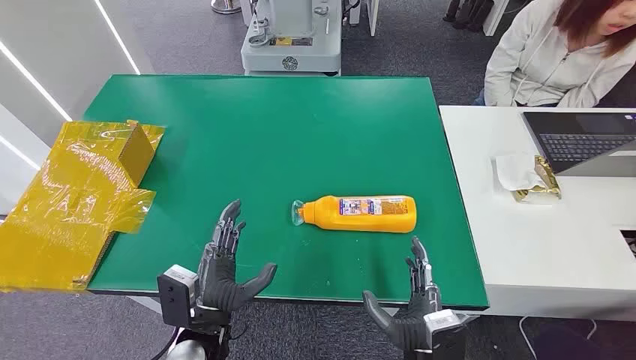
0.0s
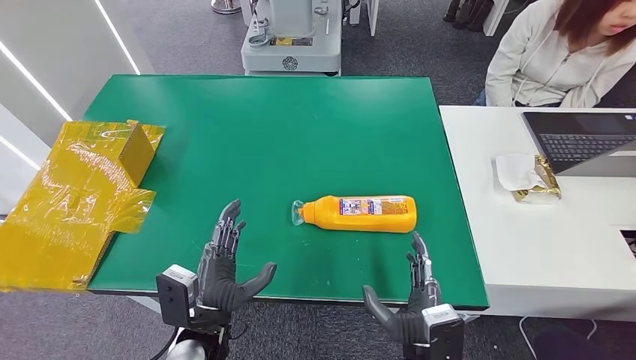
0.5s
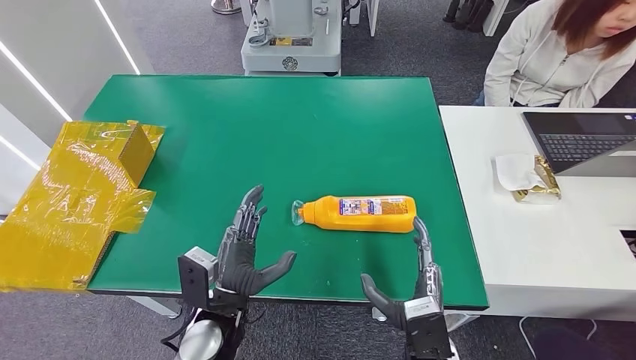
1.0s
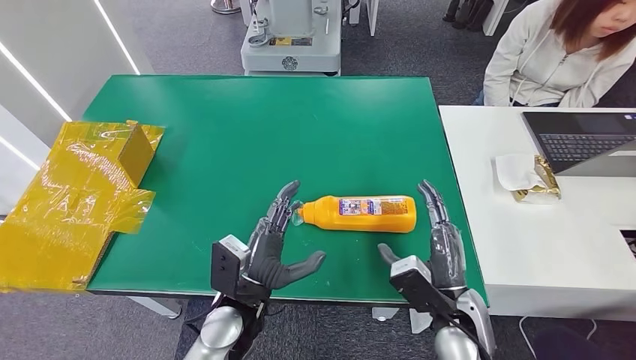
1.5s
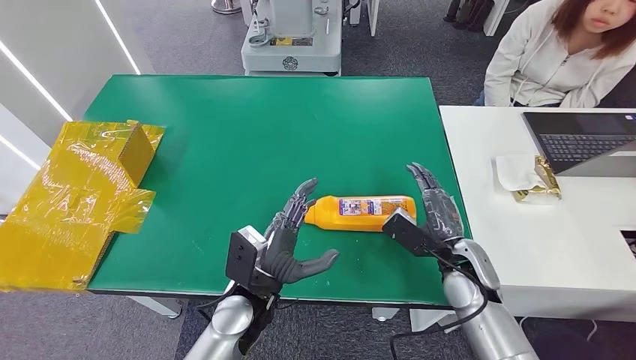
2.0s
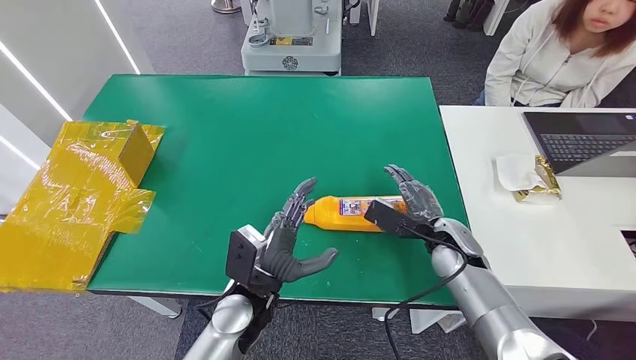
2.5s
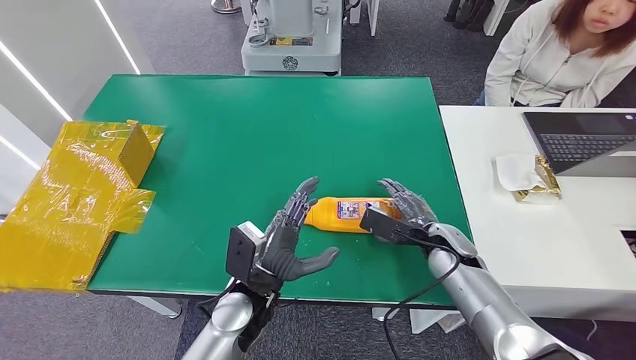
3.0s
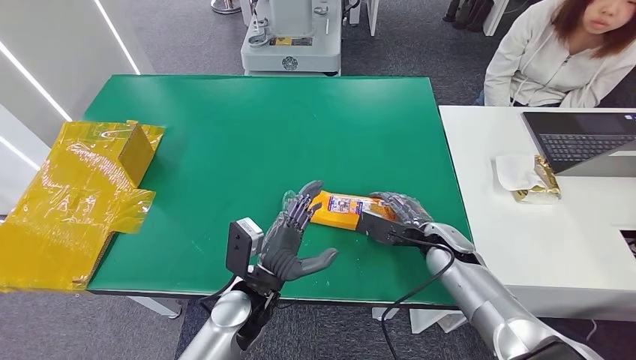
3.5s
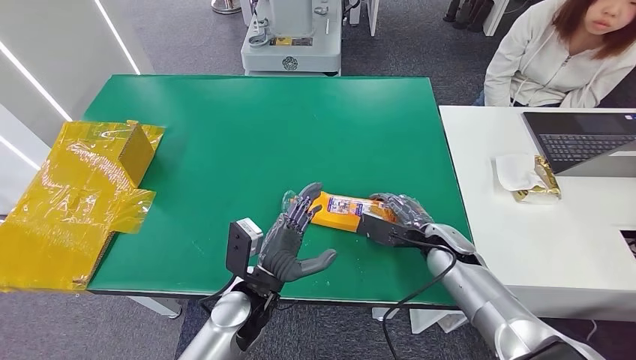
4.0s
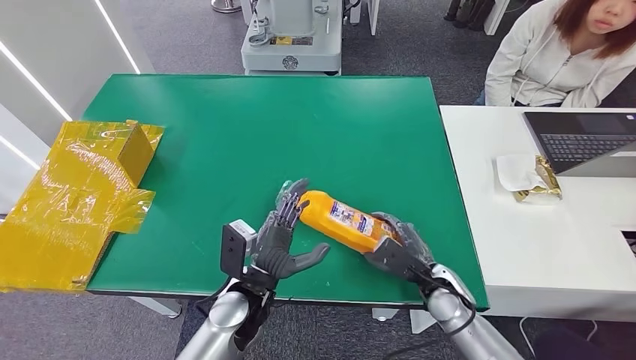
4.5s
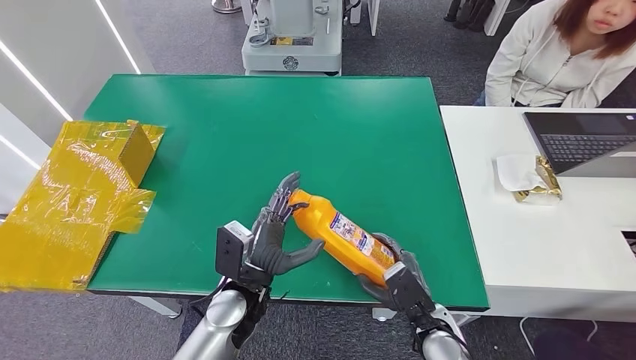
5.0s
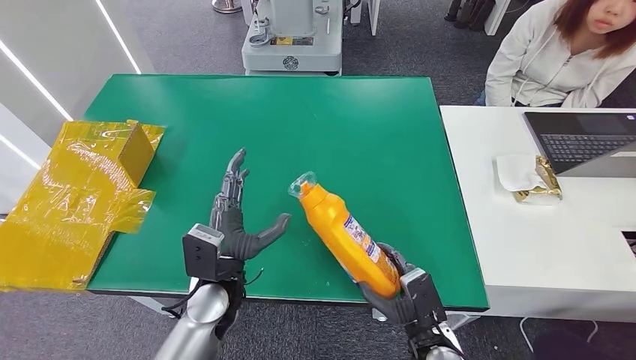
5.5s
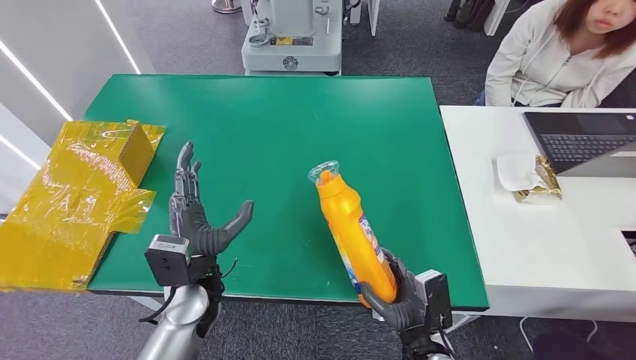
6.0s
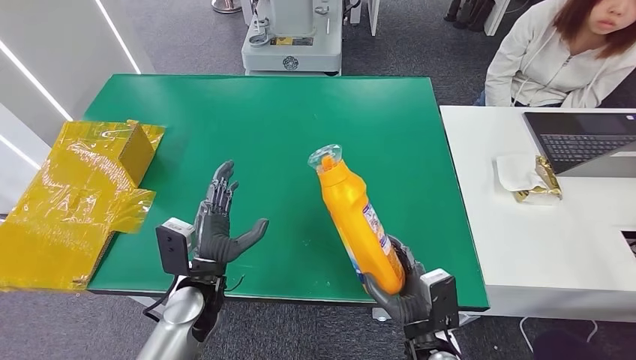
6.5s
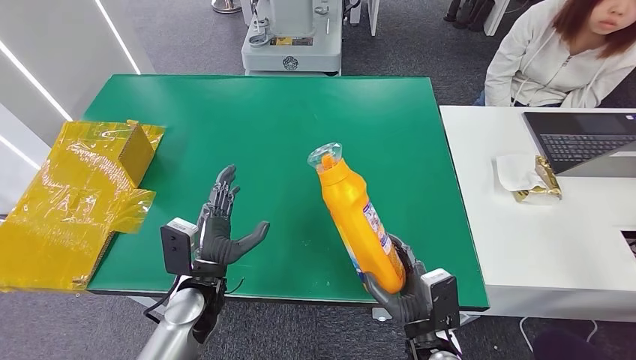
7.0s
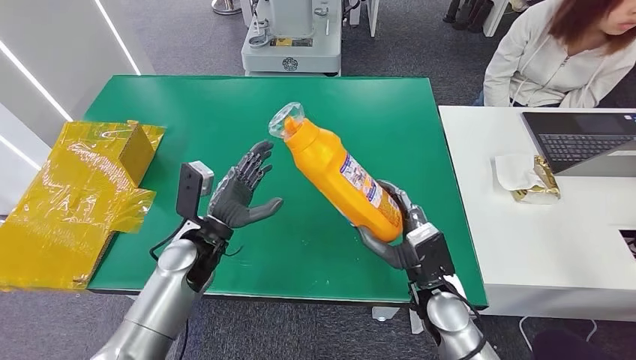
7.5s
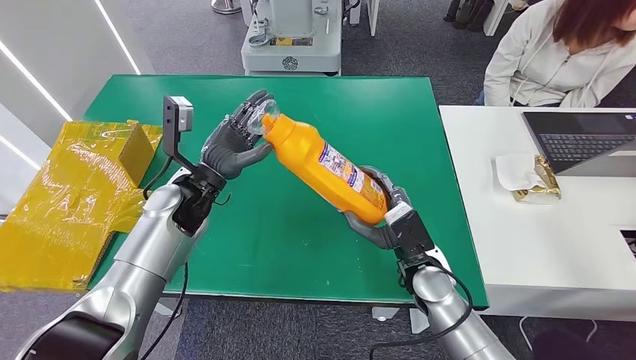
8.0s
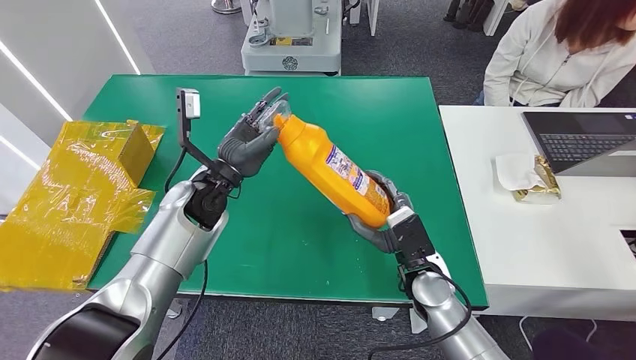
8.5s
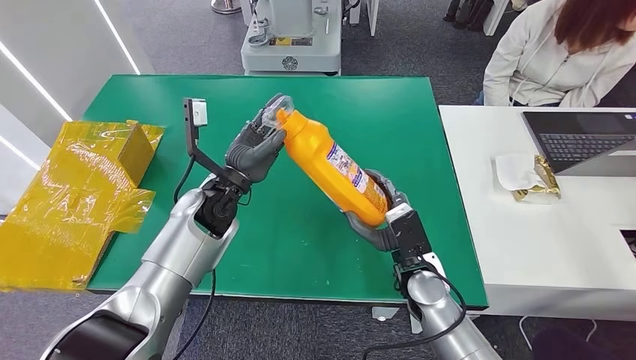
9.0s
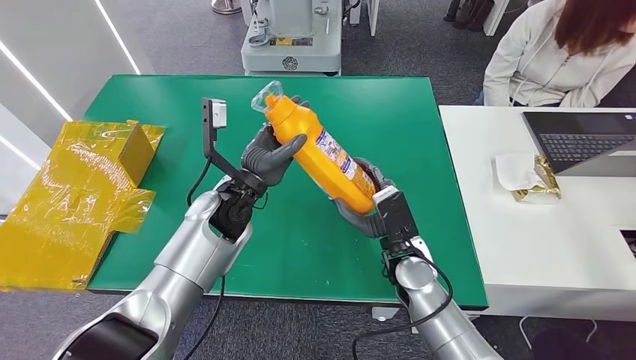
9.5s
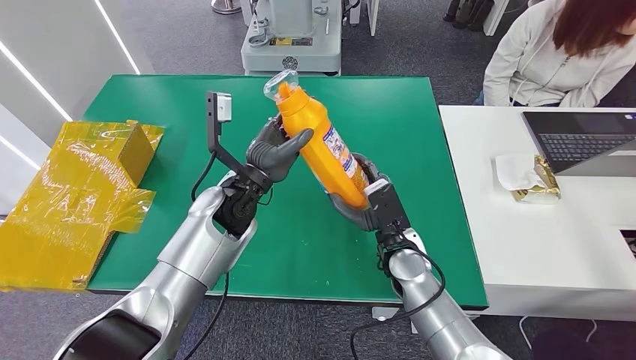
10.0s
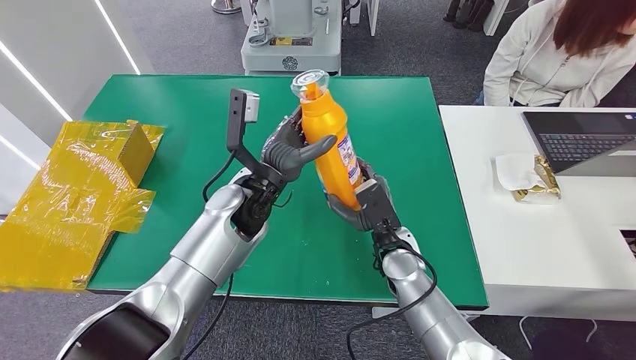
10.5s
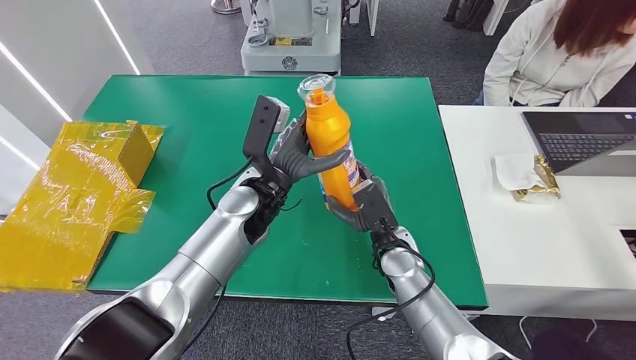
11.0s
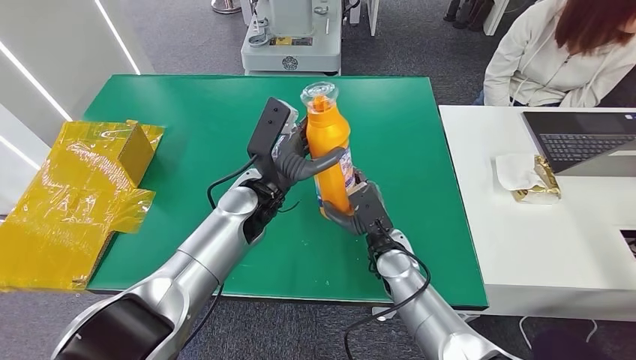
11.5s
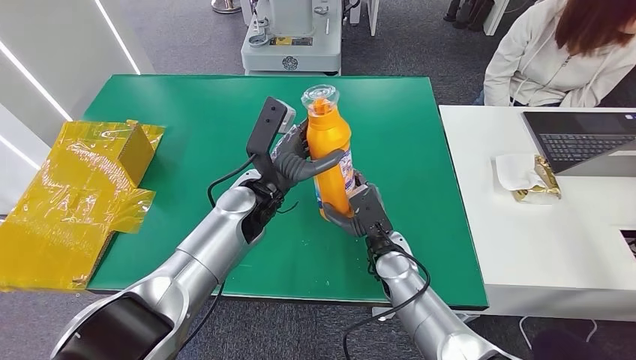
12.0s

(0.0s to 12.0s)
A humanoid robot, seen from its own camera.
Step, 0.0s - 6.0s: Pick up the bottle from the table.
2.0s - 4.0s: The right hand travels forward by roughly 5 cm.
4.0s - 6.0s: The right hand moves backward, about 20 cm; the left hand moves to the left, roughly 5 cm.
8.0s - 10.0s: The left hand travels to the right by approximately 10 cm.

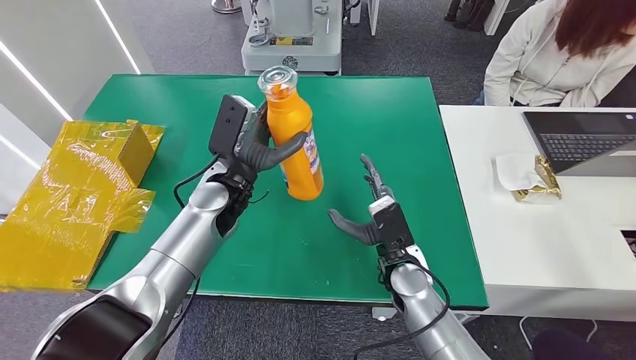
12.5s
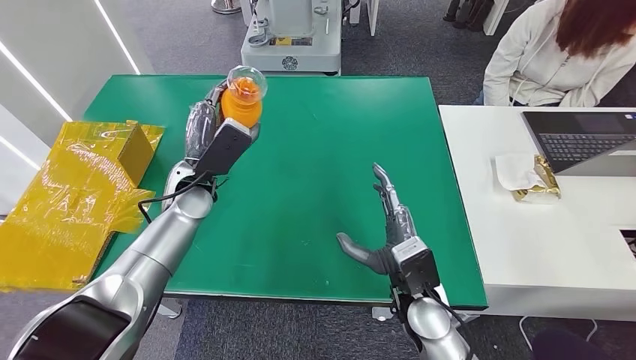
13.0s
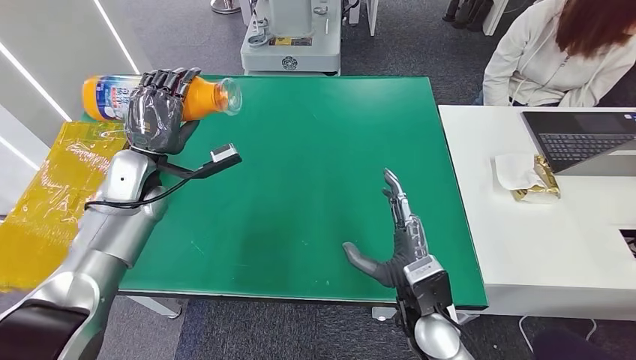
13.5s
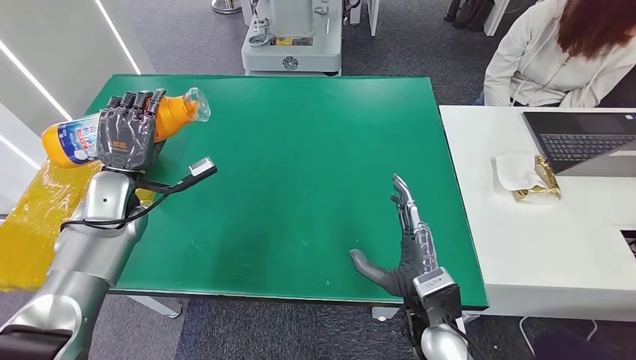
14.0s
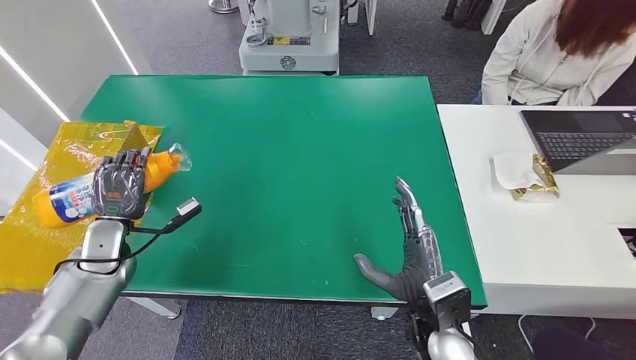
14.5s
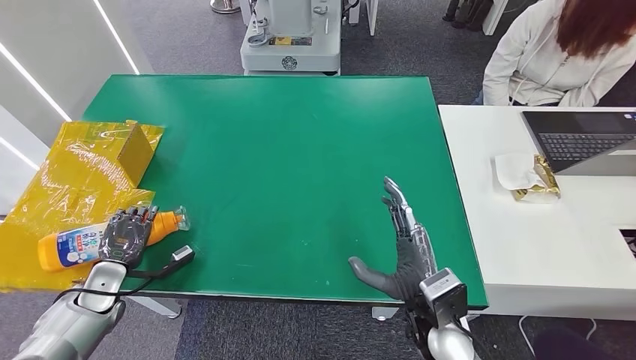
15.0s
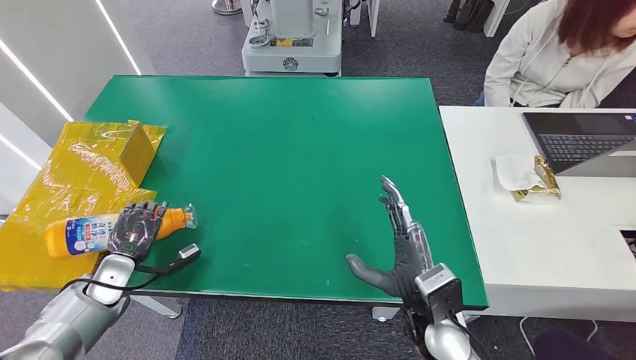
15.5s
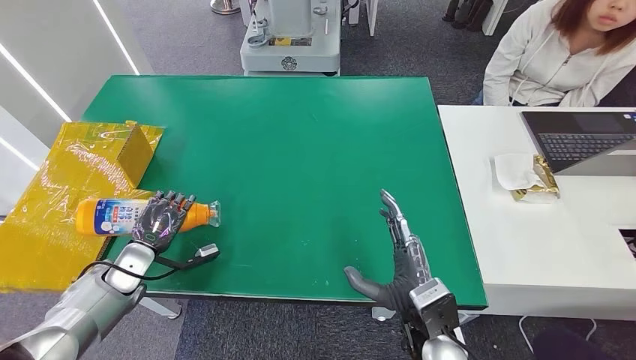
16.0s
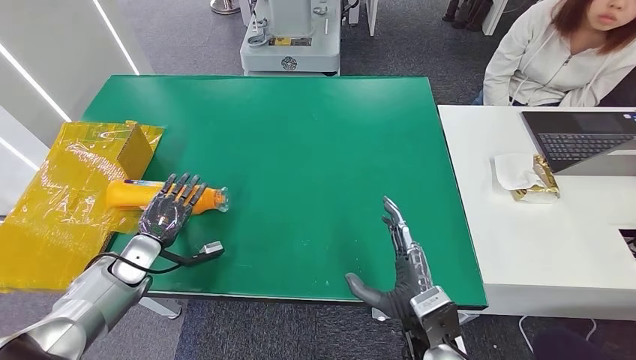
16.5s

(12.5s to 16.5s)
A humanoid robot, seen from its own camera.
Step, 12.5s - 16.5s: Turn the bottle to the front side.
